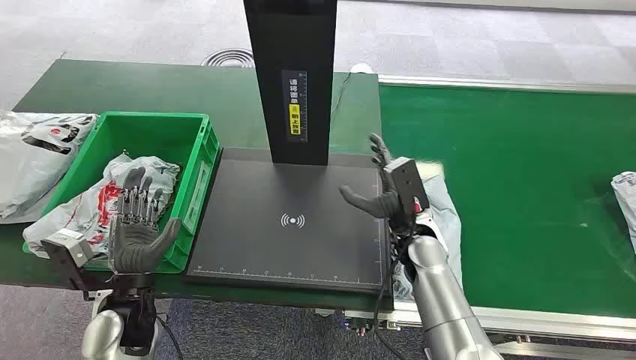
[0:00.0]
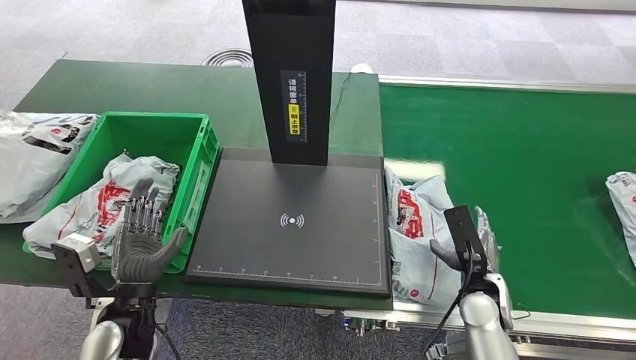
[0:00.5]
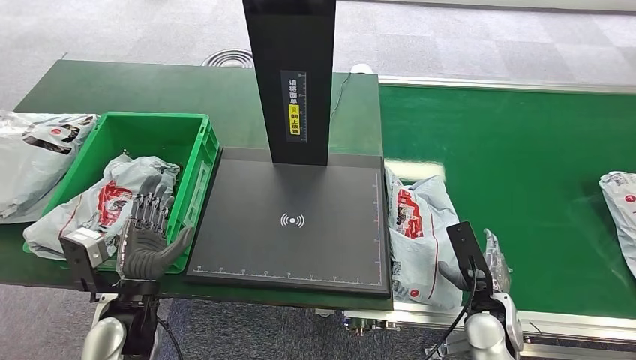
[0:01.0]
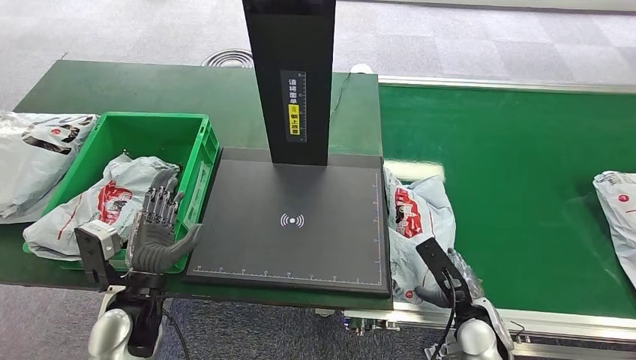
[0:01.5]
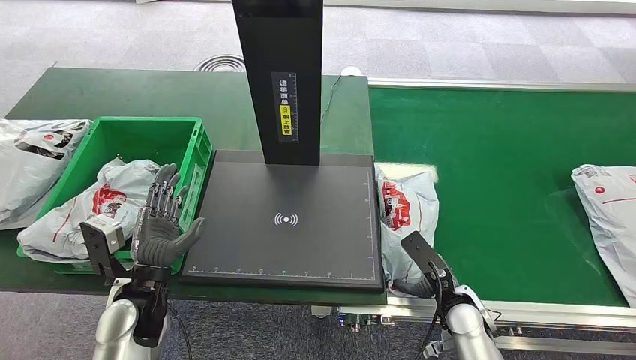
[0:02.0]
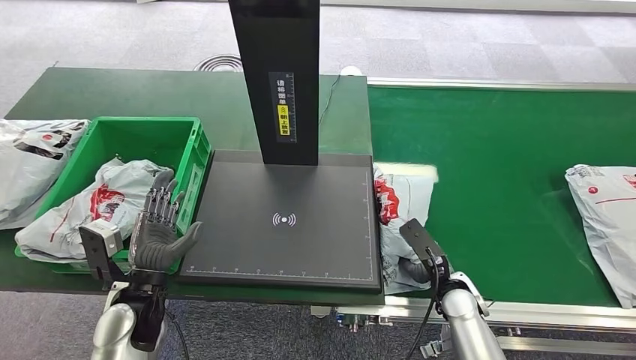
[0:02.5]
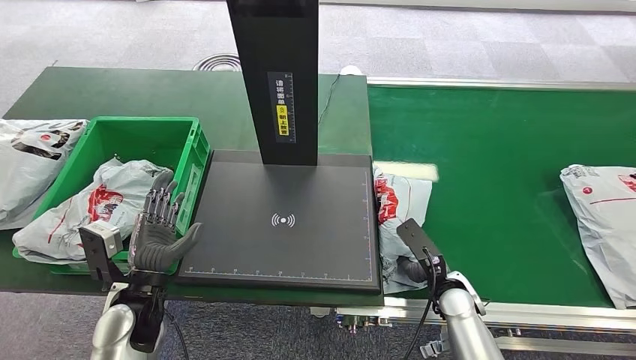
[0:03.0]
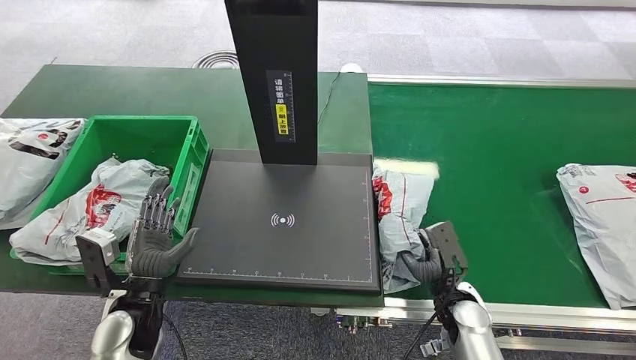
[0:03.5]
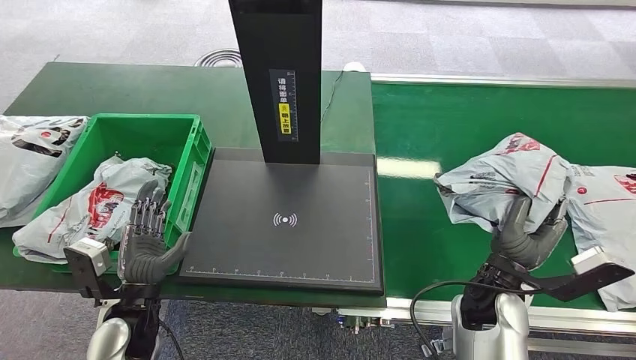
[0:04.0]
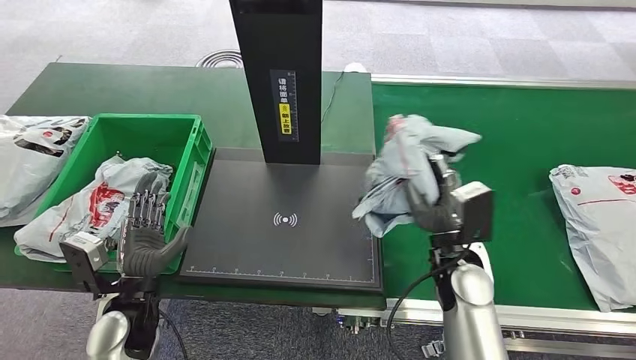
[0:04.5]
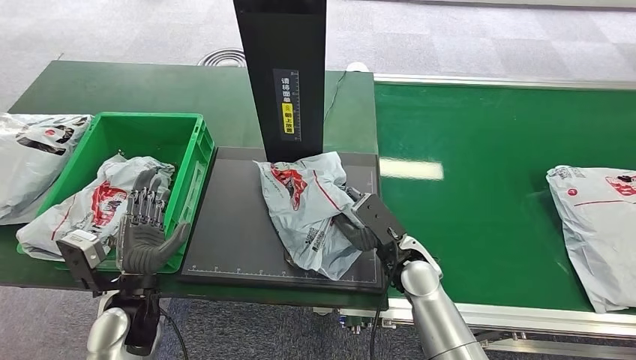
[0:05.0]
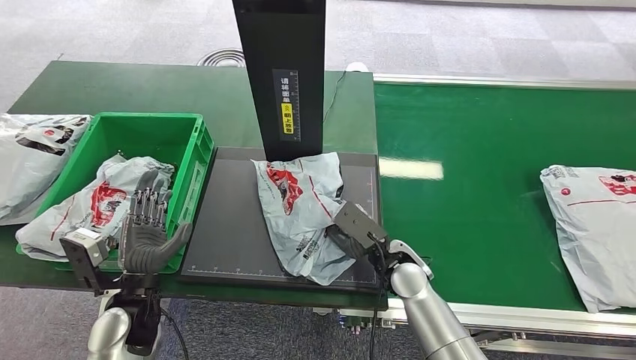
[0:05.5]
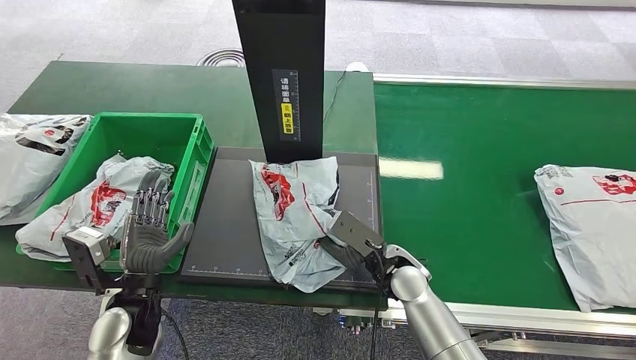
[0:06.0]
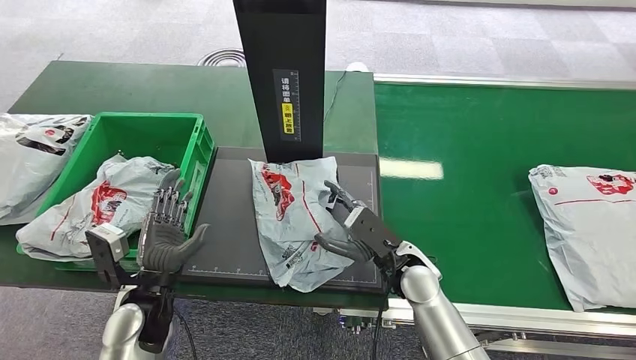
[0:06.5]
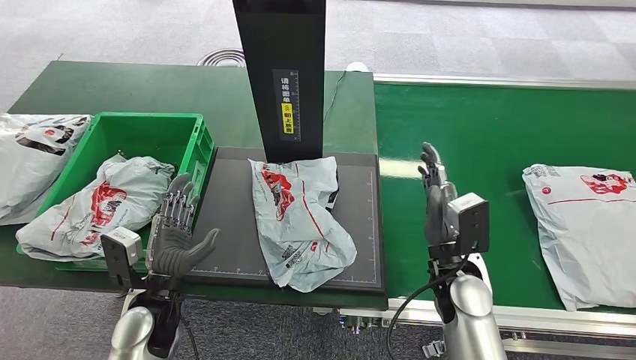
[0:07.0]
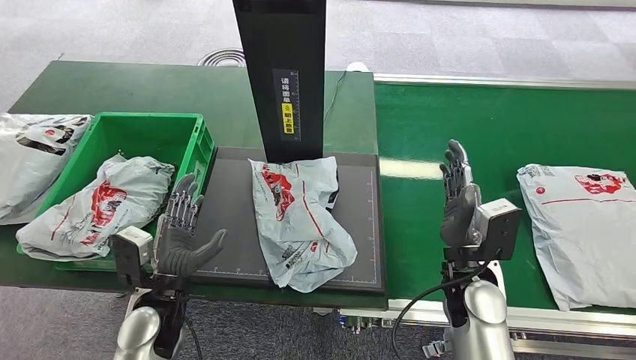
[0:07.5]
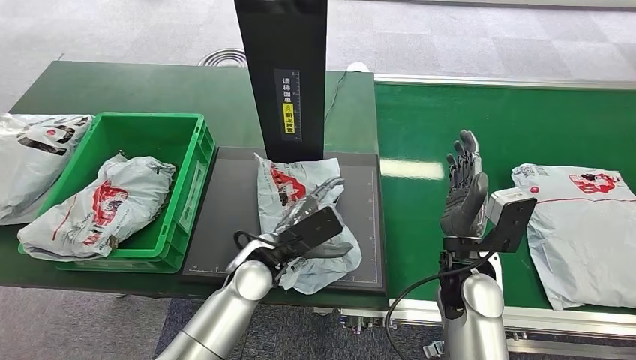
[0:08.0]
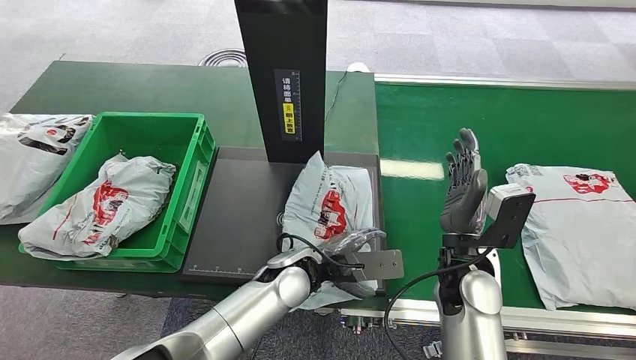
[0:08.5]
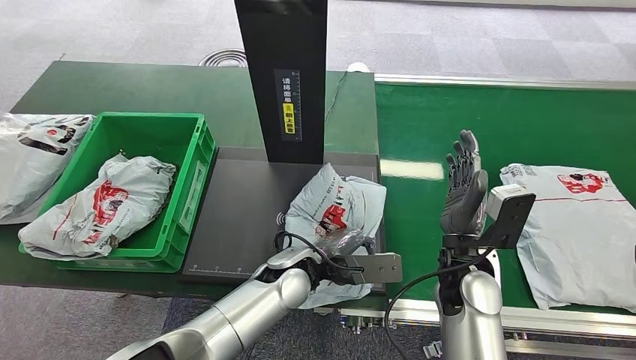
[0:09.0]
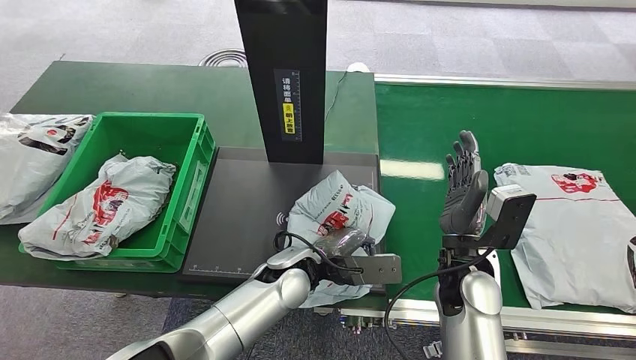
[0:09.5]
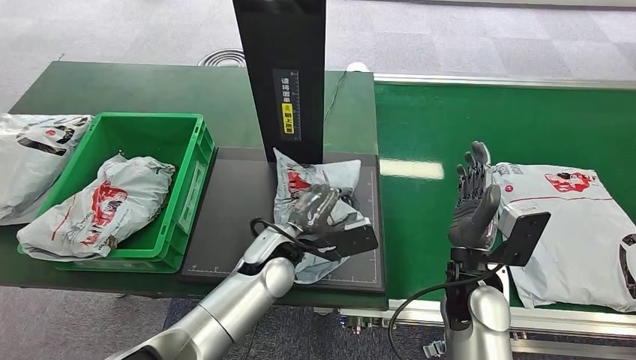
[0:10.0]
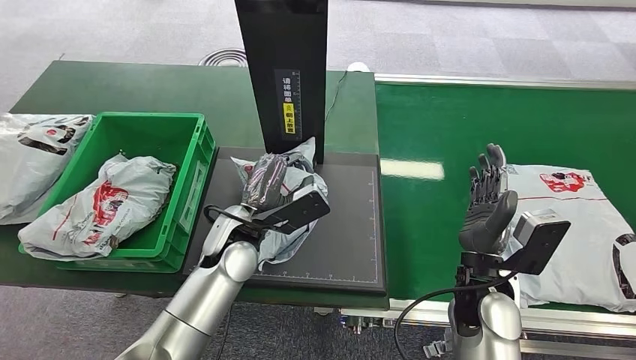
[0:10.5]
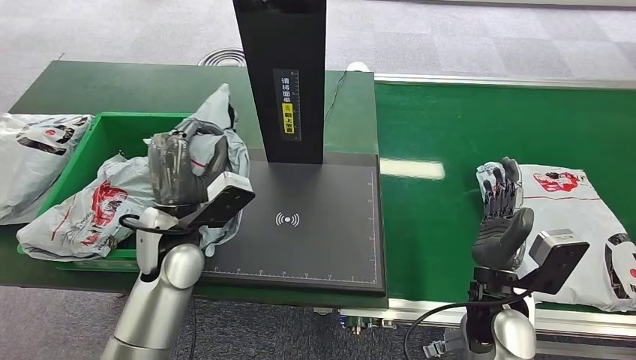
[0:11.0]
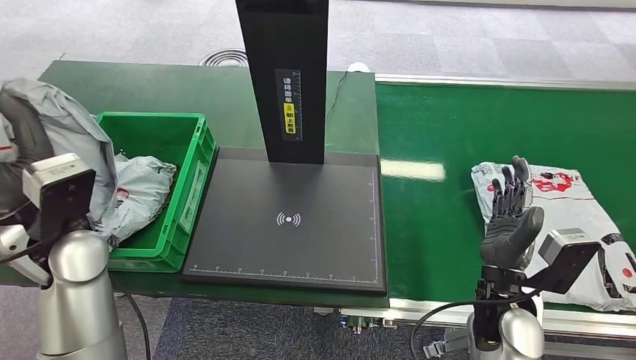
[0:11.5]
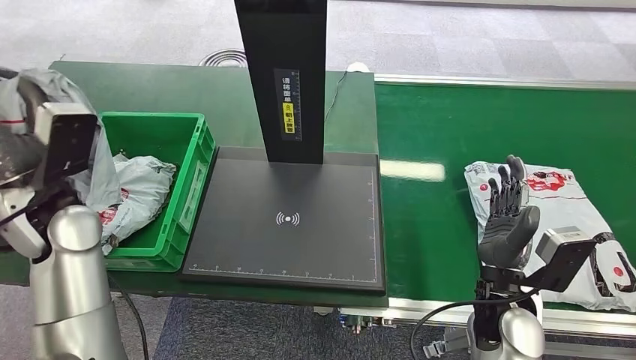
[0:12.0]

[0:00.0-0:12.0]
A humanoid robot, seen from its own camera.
Step, 0:00.0 to 0:03.5: Pick up the package from the conveyor belt.
Step, 0:04.0 to 0:06.5: Place the package onto the inbound machine.
Step, 0:07.0 to 0:10.5: Pick up the package from the inbound machine.

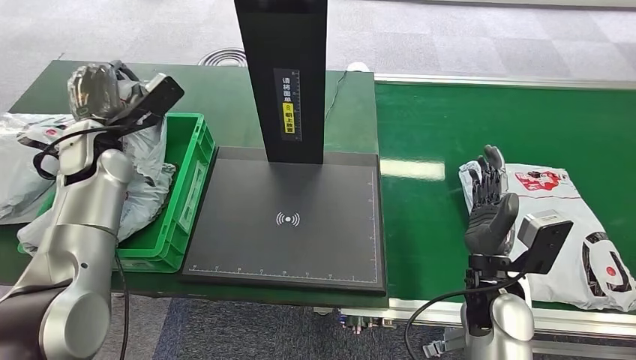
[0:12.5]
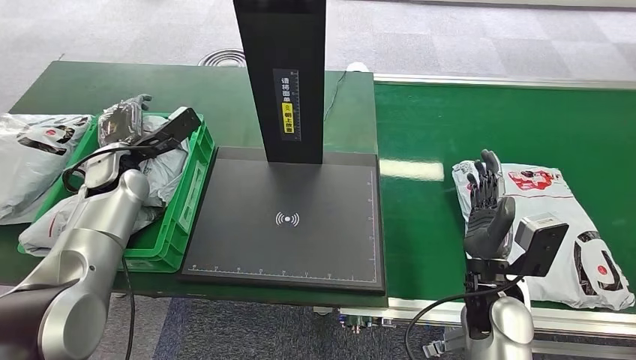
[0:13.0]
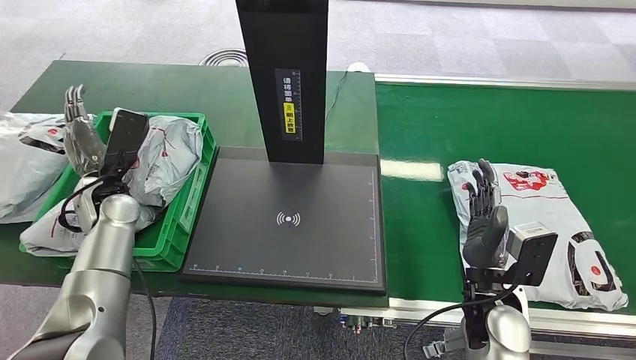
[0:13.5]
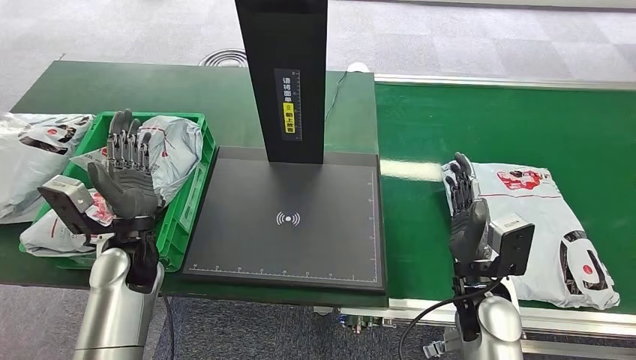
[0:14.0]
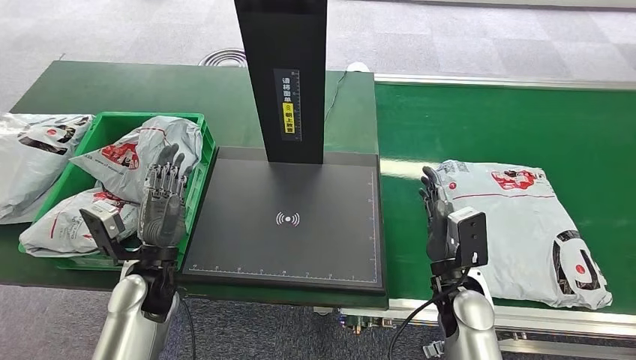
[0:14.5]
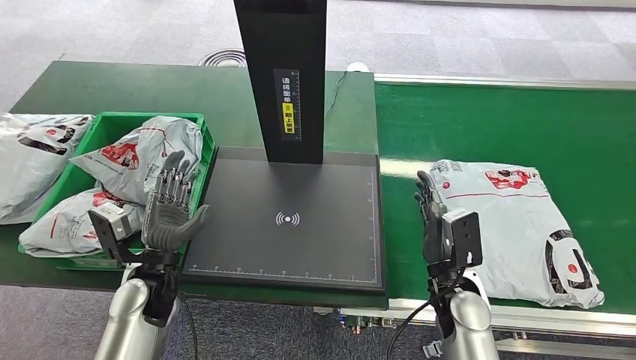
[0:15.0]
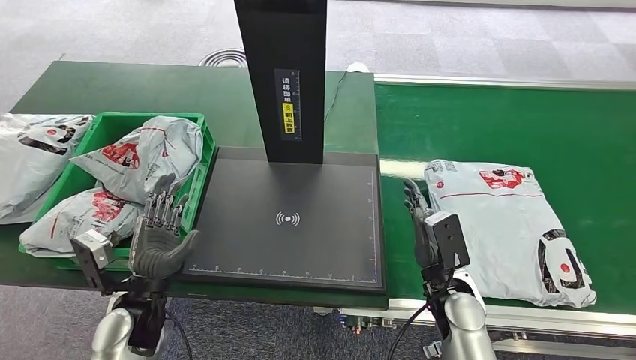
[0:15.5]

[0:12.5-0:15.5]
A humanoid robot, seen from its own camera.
Step, 0:12.5 to 0:15.0: Place the package into the parcel locker.
0:14.0 to 0:15.5: The right hand changes place by approximately 5 cm. Meanwhile the left hand moves backward and downward, about 10 cm.

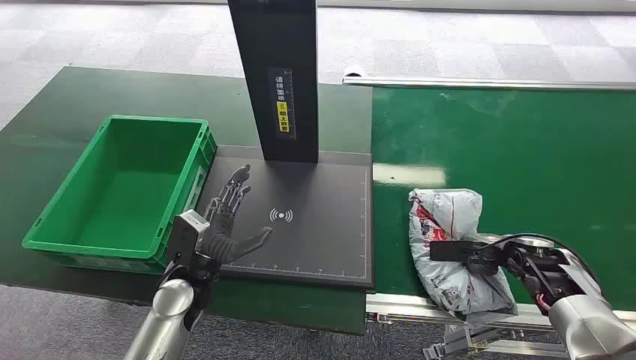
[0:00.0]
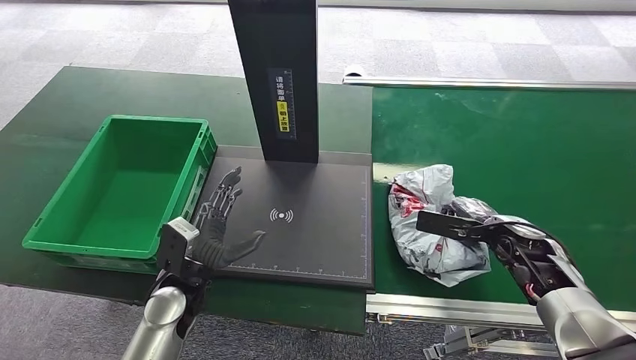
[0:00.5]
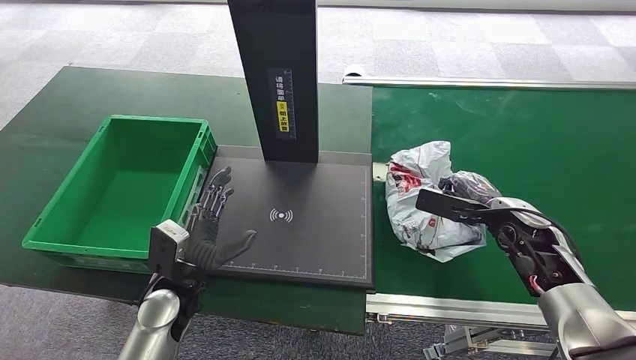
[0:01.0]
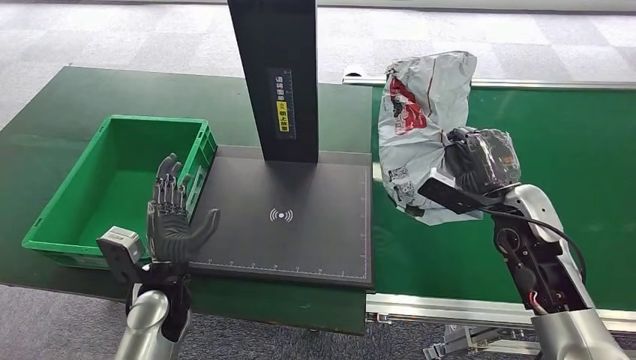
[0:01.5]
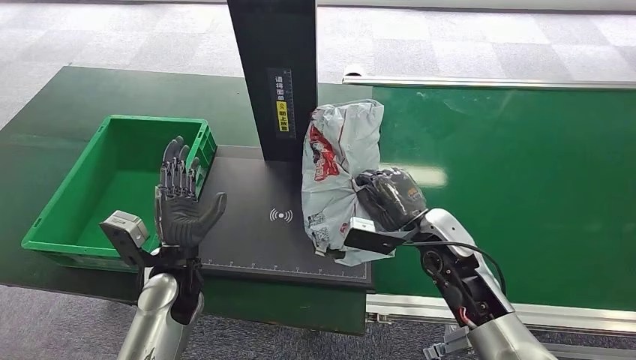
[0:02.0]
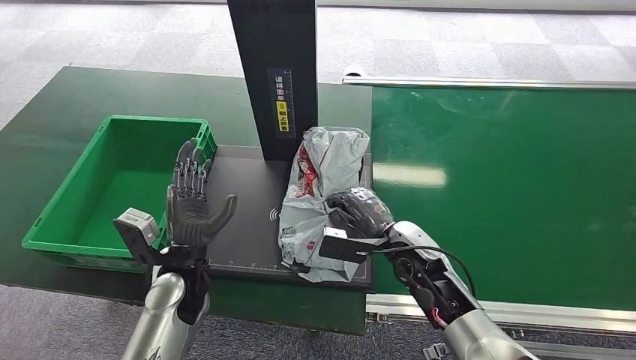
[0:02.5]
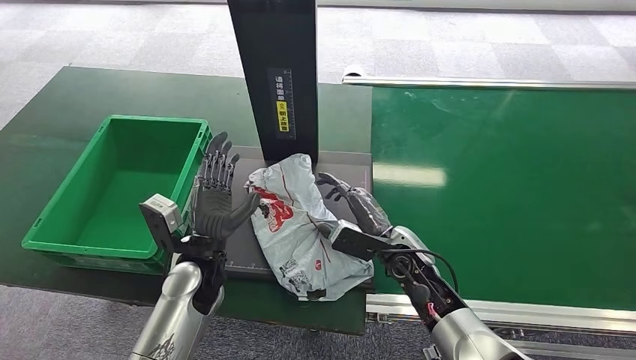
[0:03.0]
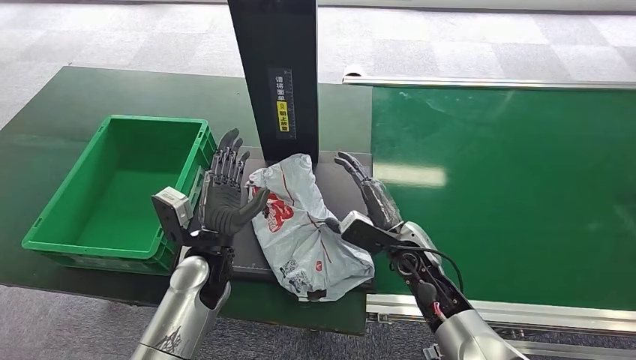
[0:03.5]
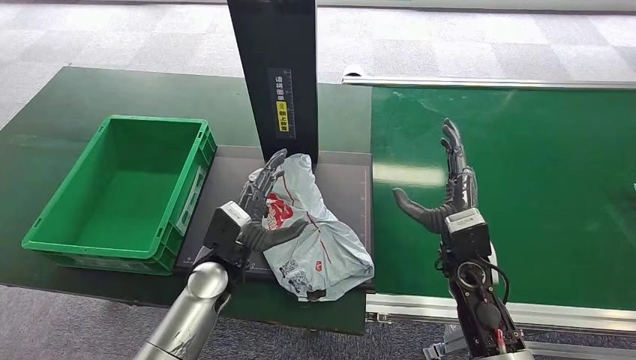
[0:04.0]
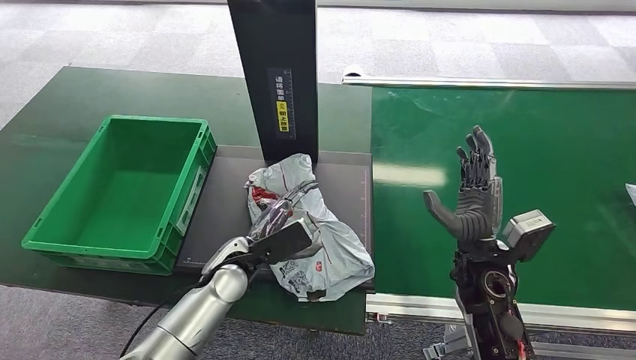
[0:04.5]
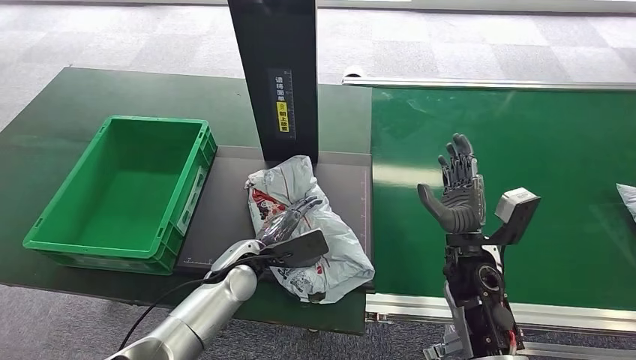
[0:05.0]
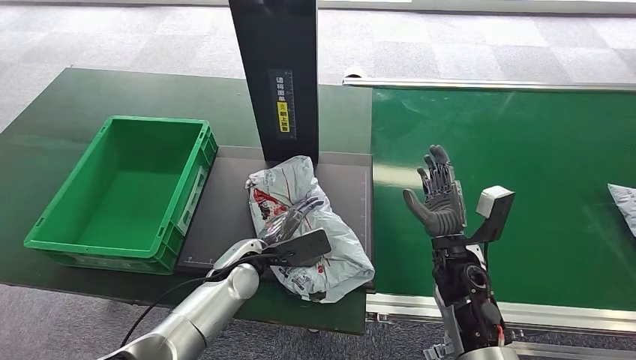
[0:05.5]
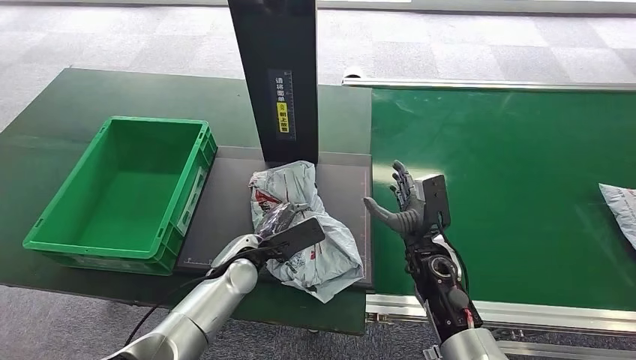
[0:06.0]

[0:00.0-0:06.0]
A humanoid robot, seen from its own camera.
Step, 0:00.0 to 0:01.5: Pick up the package from the conveyor belt.
Step, 0:02.0 to 0:03.5: Place the package onto the inbound machine.
0:02.0 to 0:04.0: The left hand goes approximately 5 cm to the right.
0:04.0 to 0:06.0: The right hand moves downward, approximately 5 cm.
